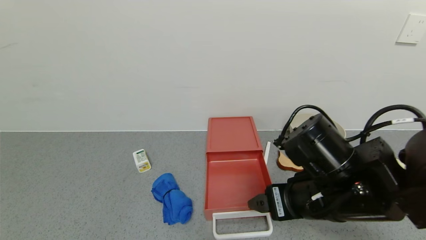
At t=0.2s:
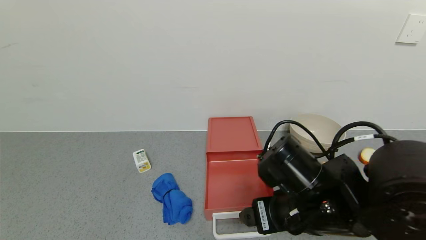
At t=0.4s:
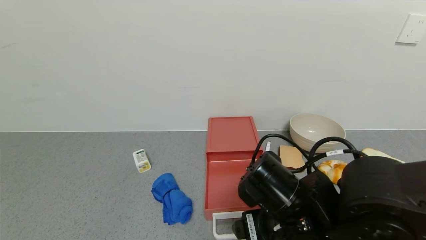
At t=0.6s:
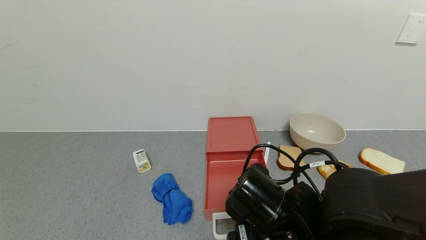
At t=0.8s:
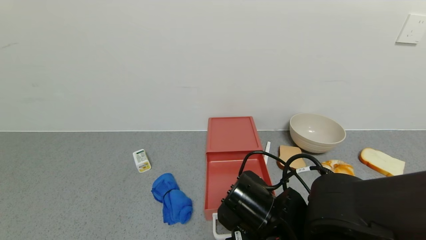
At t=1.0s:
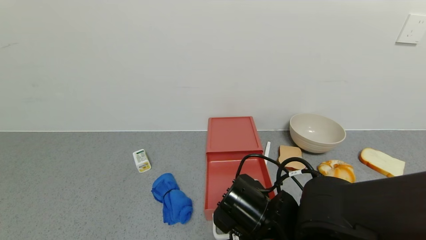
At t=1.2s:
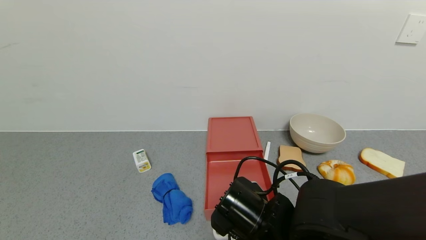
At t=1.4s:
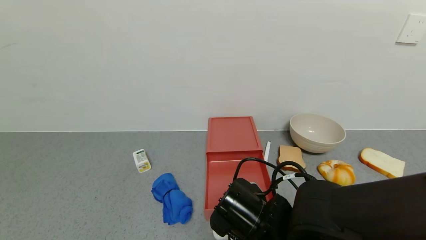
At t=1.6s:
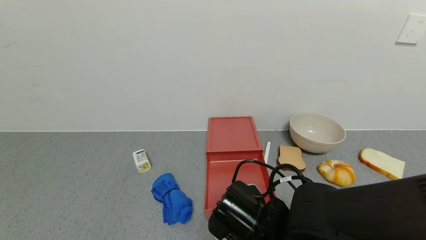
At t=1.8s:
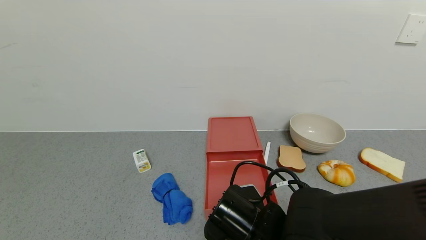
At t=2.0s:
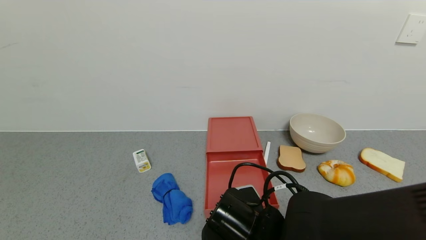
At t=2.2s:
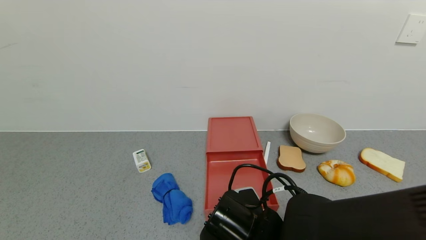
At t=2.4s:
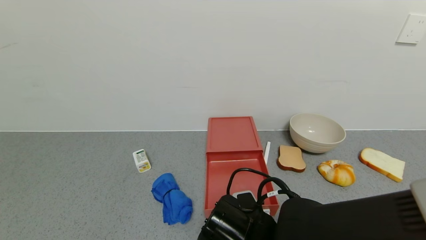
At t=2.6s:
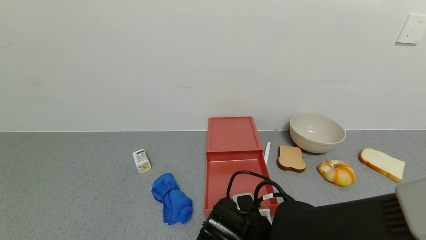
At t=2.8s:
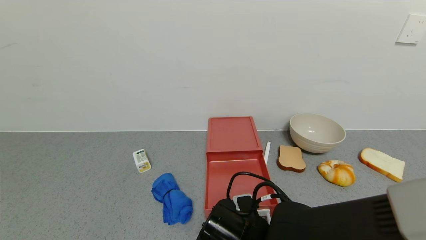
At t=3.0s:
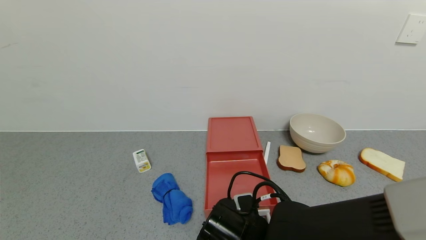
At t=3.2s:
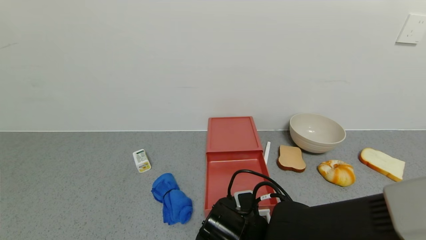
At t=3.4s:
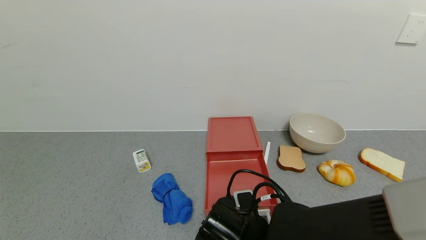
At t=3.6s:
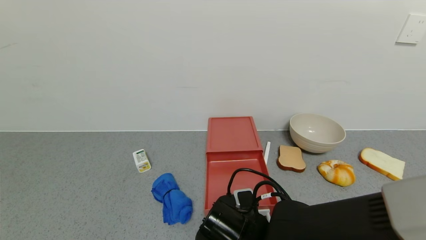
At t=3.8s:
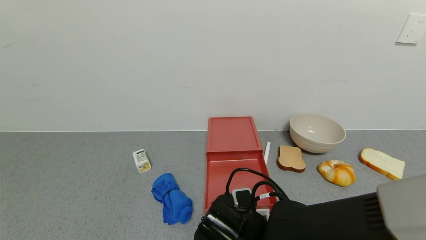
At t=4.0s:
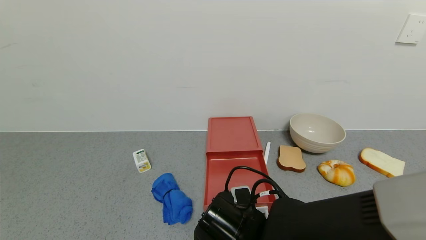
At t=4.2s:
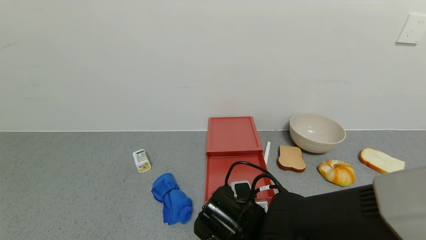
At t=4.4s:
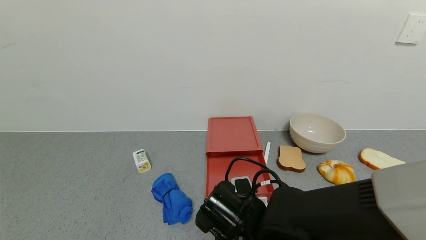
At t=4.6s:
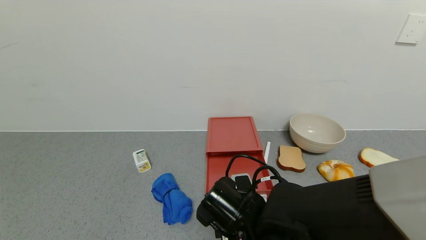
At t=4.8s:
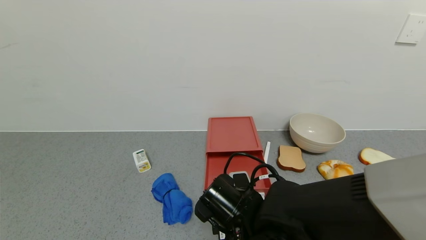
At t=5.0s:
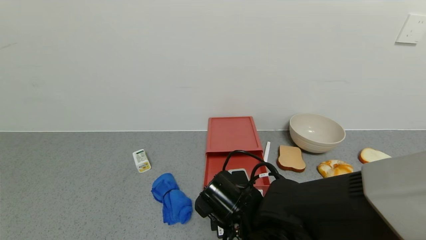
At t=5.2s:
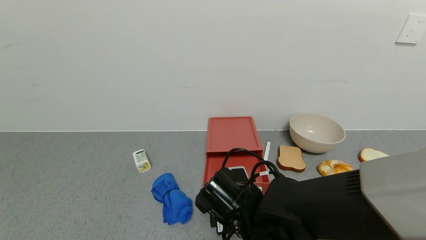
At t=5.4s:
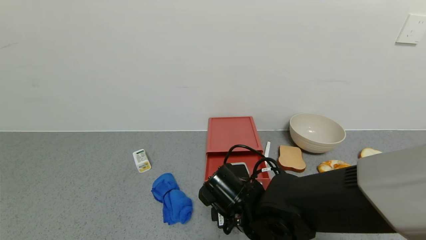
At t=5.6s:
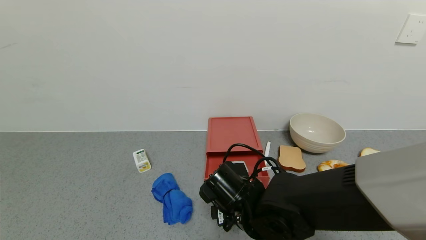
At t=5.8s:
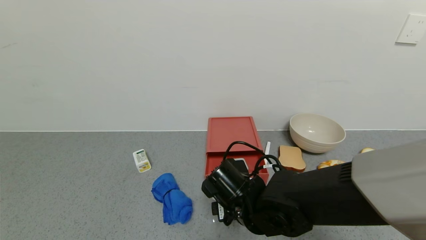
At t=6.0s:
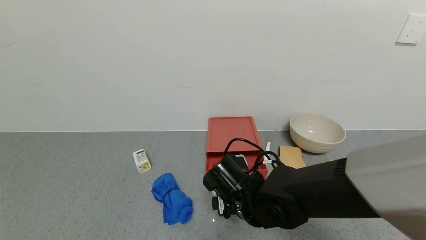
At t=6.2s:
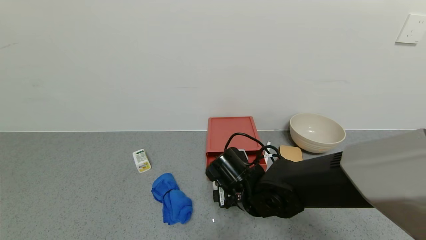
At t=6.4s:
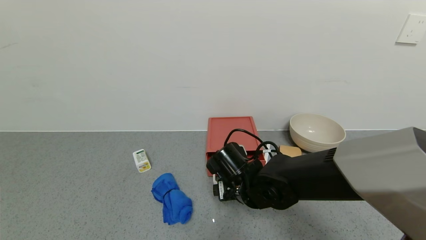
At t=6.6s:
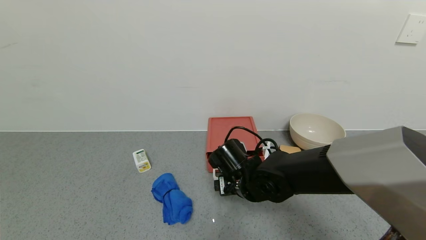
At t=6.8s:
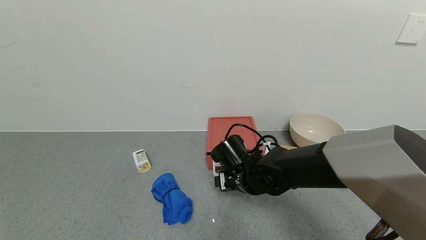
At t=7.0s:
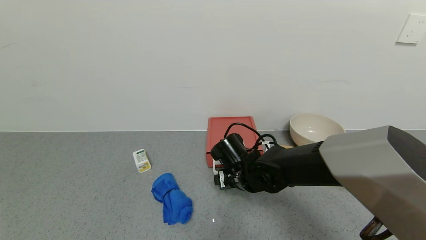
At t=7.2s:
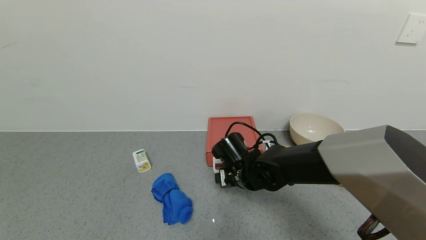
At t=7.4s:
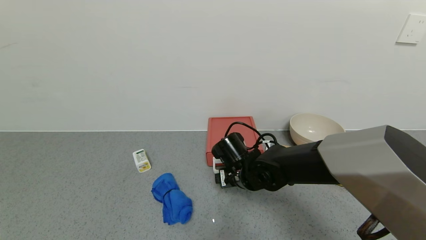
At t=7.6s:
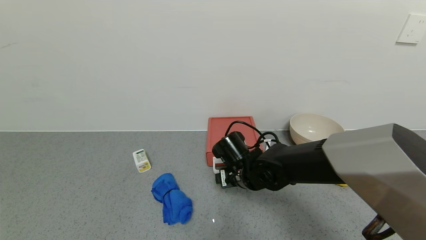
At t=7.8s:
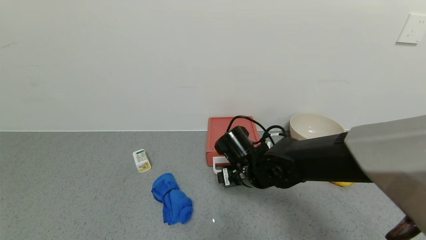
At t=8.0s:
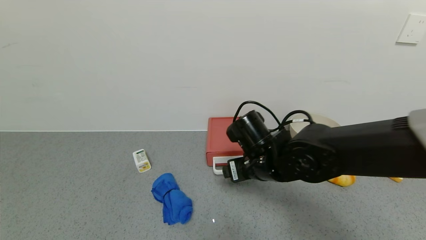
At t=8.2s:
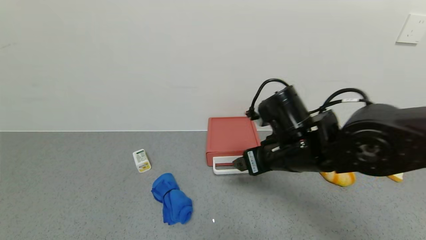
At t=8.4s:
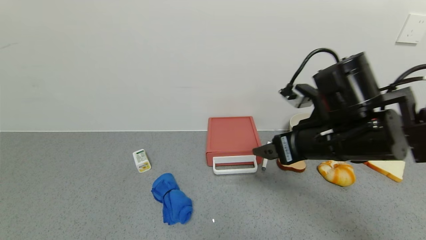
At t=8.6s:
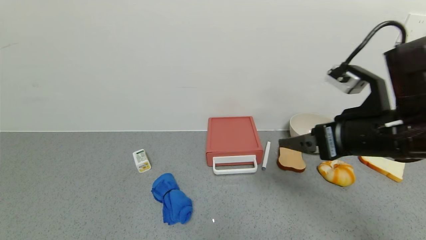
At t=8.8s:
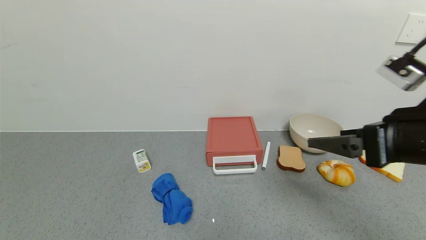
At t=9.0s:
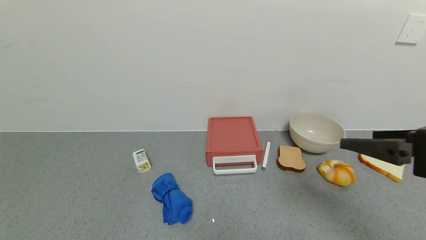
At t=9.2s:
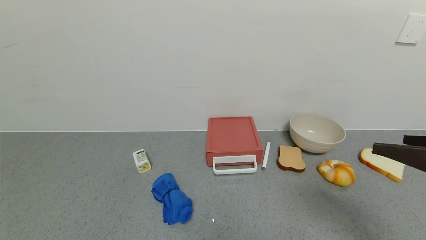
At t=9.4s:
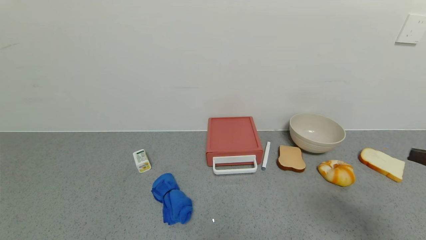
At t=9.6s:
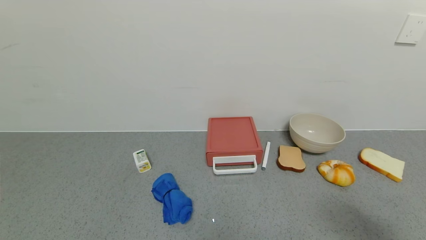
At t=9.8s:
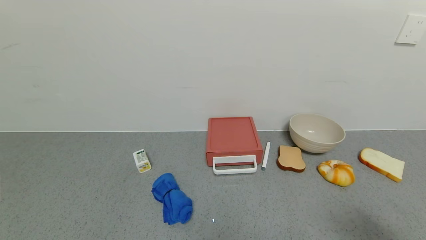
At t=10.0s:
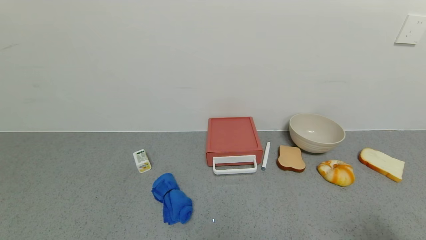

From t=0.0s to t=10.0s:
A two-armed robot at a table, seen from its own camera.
Task of the whole recording: use the gripper to open the drawer and close the red drawer.
Step, from t=0.0s to t=7.8s: Close the red drawer with the right gripper.
From t=0.0s to t=1.4s: The right gripper shifts roughly 10 cm downward and to the left.
From t=1.4s to t=4.2s: The grippers make only small movements.
From t=4.2s to t=5.8s: The right gripper heads forward, covering roughly 5 cm.
From t=5.8s to t=7.2s: The right gripper travels forward by approximately 10 cm.
From t=7.2s to t=8.6s: The right gripper travels upward, to the right and backward by approximately 30 cm.
From t=8.6s to t=10.0s: The right gripper is displaced backward and to the right by roughly 25 cm.
